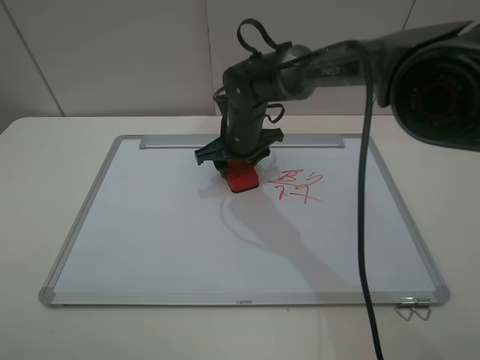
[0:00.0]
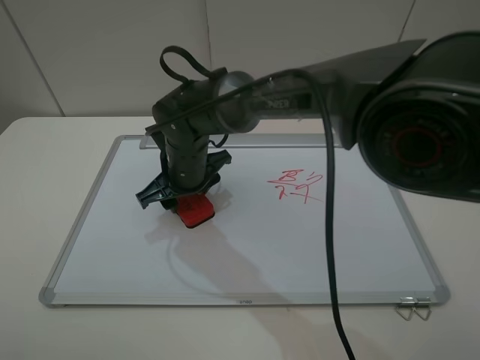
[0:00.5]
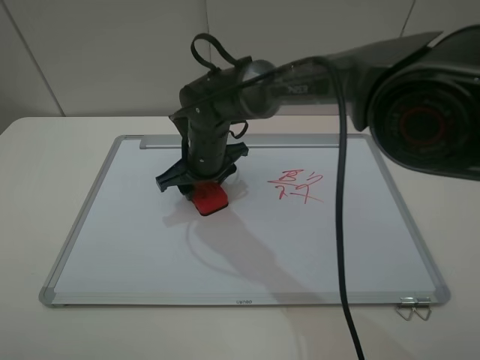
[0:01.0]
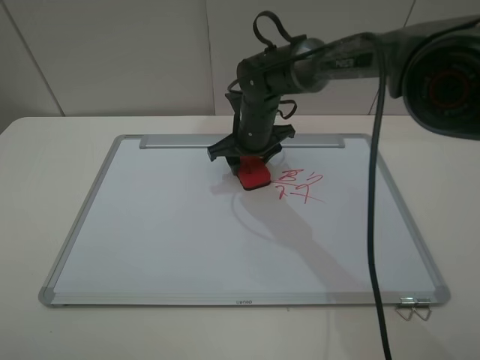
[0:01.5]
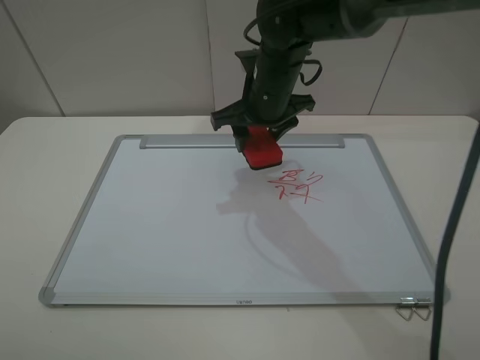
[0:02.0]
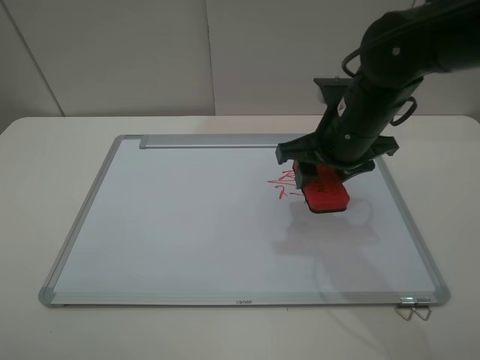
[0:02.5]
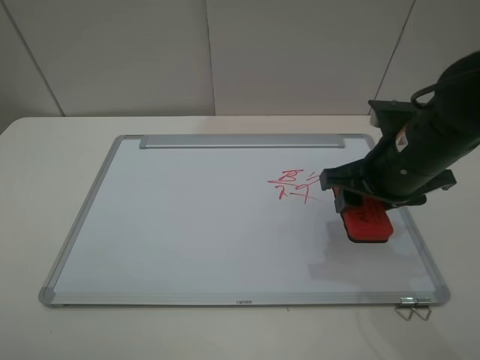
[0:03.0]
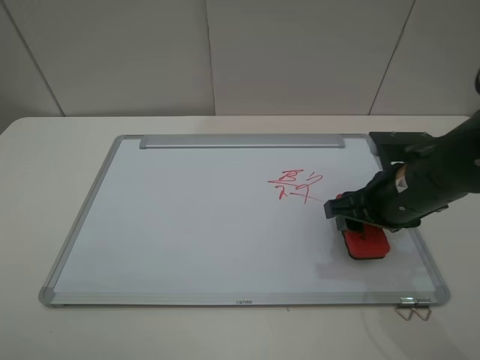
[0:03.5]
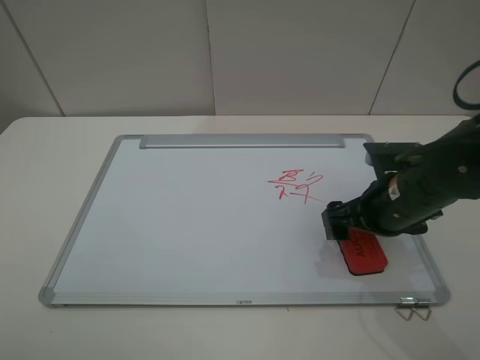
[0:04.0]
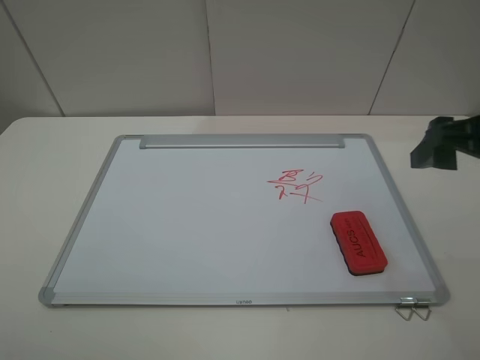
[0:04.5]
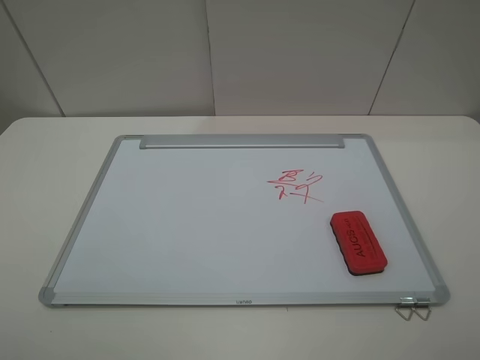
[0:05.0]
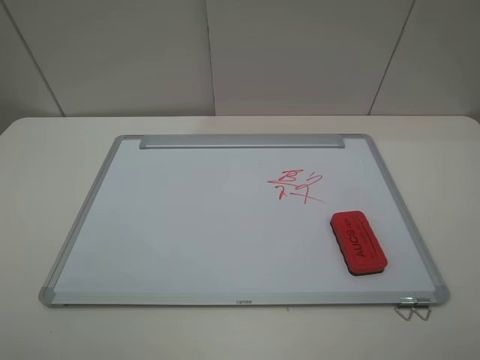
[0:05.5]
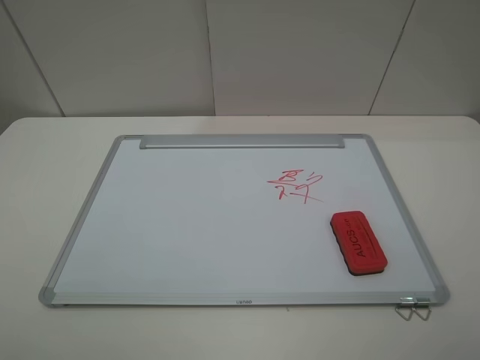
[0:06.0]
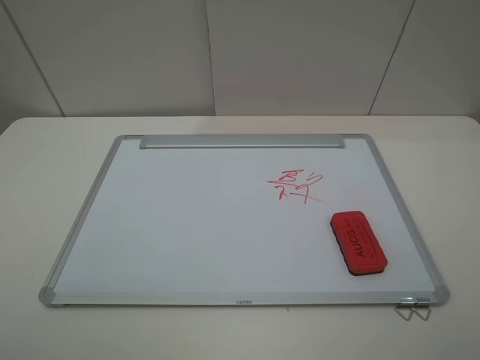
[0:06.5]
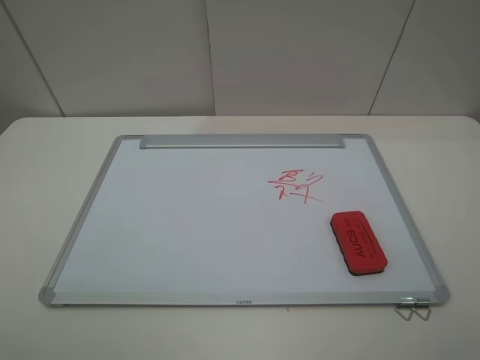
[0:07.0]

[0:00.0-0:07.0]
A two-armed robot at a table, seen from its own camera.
Step, 0:02.0 to 0:04.0: Place the eraser with the right gripper.
0:00.0 to 0:02.0: The right gripper travels upward and to the right by some 10 cm.
0:02.0 to 0:03.5: The right gripper travels to the right and backward by about 20 cm.
0:03.5 to 0:05.0: The right gripper shifts roughly 30 cm backward, upward and to the right, and opens its fingers.
